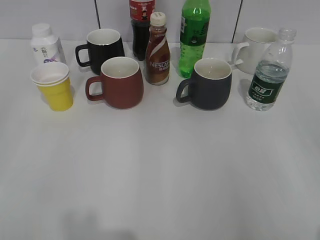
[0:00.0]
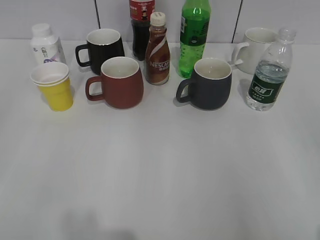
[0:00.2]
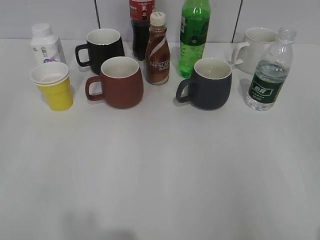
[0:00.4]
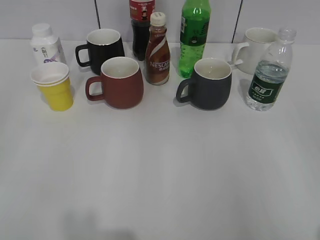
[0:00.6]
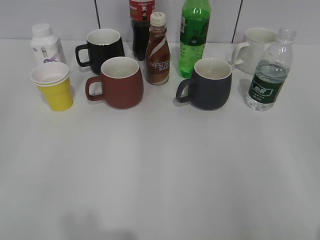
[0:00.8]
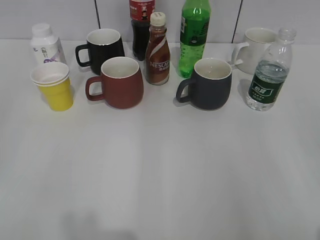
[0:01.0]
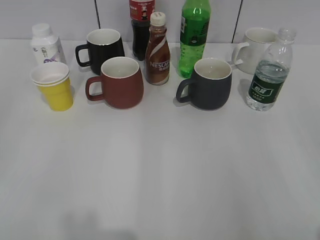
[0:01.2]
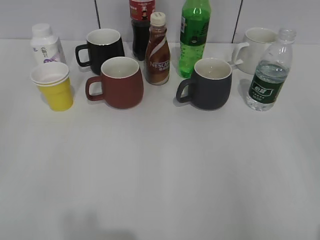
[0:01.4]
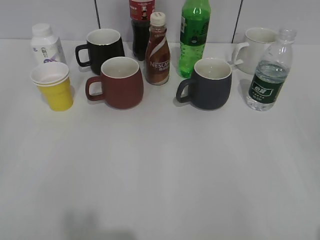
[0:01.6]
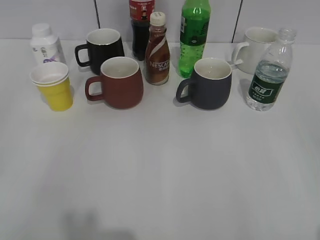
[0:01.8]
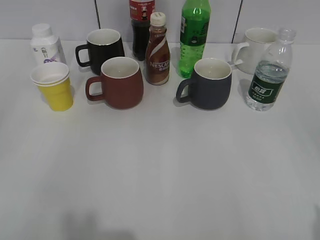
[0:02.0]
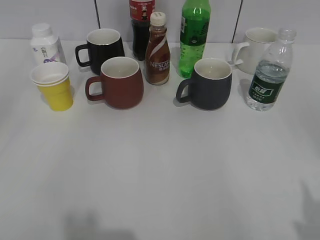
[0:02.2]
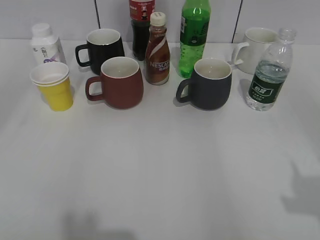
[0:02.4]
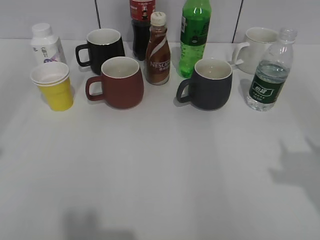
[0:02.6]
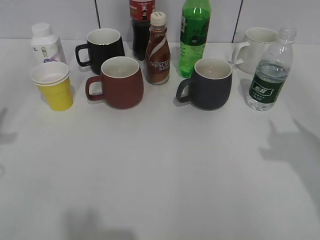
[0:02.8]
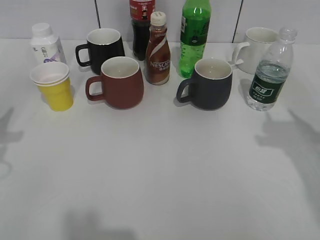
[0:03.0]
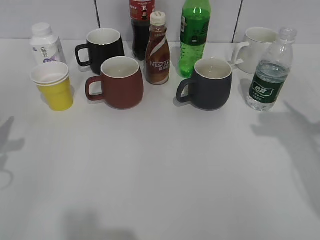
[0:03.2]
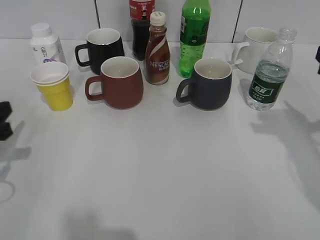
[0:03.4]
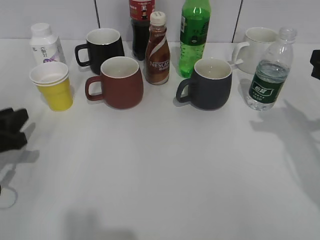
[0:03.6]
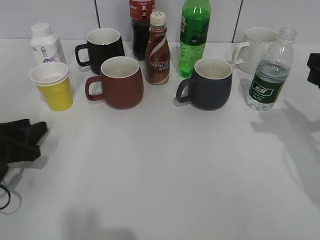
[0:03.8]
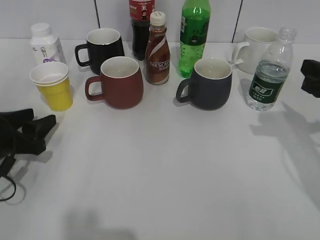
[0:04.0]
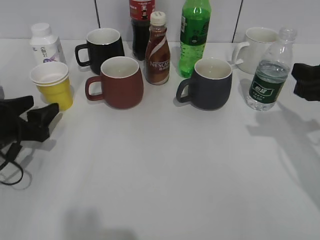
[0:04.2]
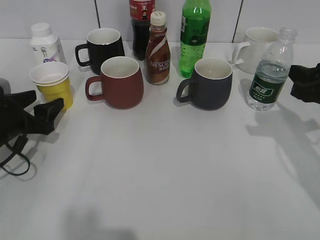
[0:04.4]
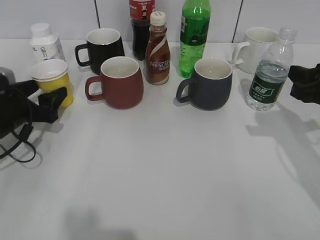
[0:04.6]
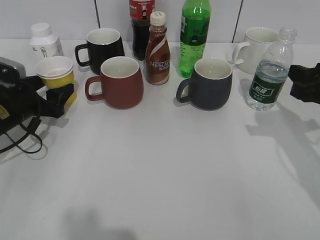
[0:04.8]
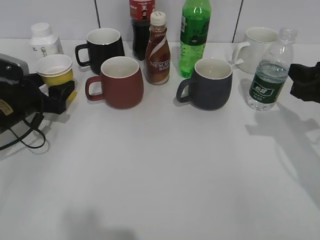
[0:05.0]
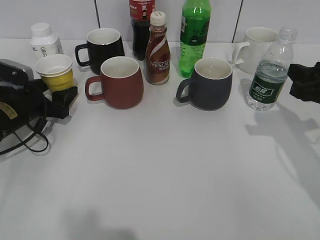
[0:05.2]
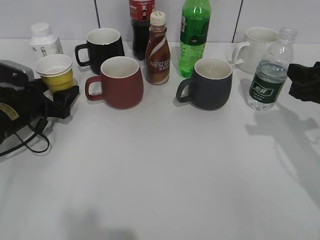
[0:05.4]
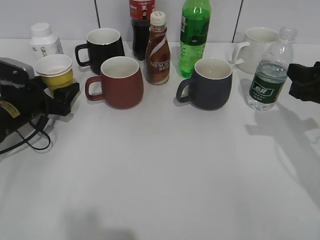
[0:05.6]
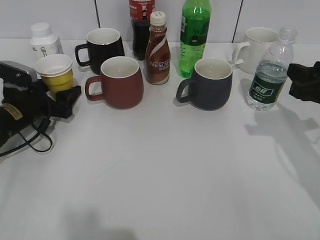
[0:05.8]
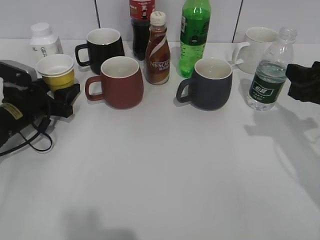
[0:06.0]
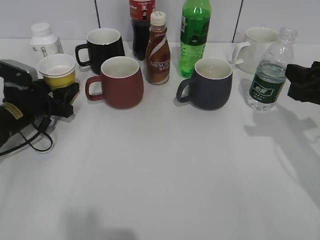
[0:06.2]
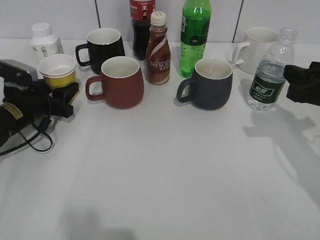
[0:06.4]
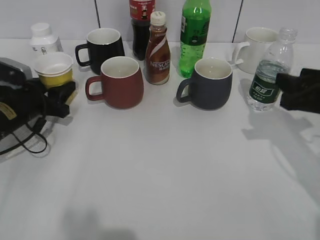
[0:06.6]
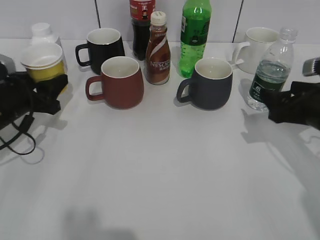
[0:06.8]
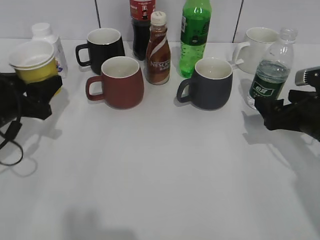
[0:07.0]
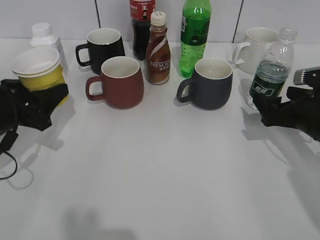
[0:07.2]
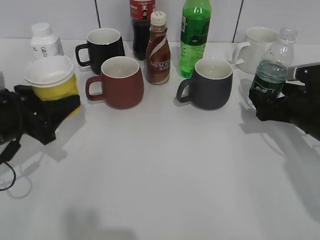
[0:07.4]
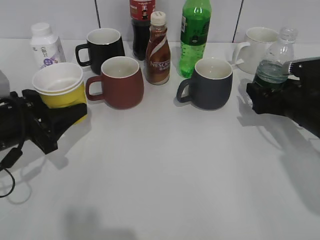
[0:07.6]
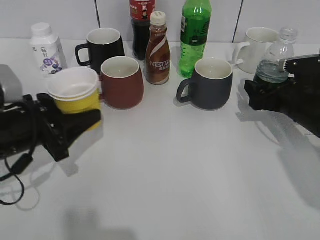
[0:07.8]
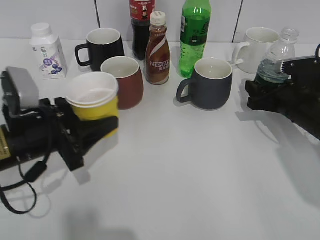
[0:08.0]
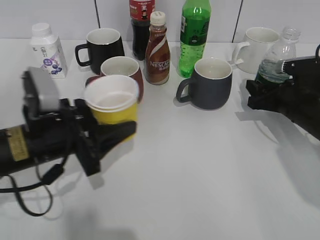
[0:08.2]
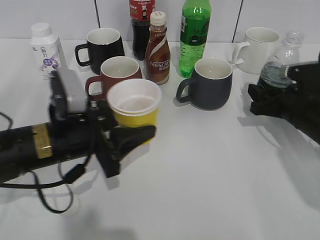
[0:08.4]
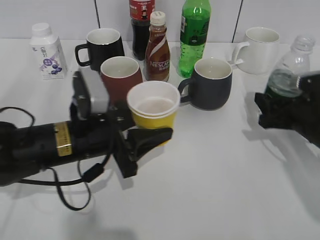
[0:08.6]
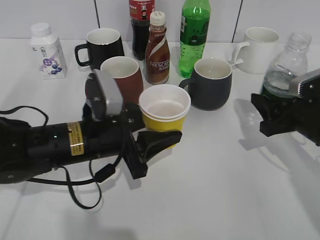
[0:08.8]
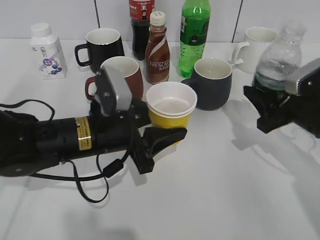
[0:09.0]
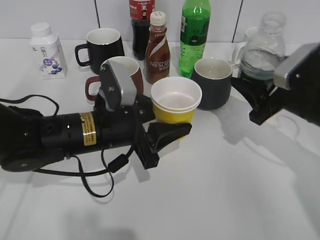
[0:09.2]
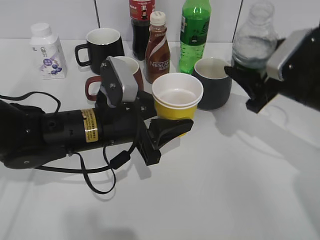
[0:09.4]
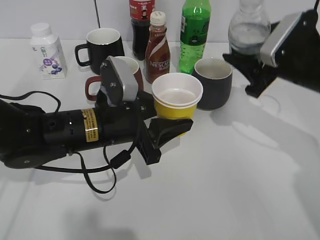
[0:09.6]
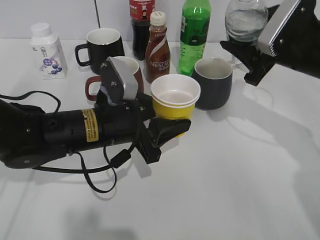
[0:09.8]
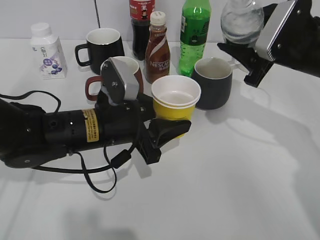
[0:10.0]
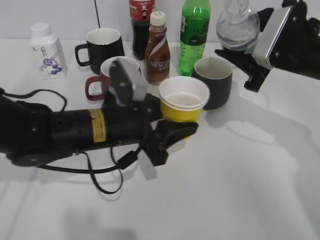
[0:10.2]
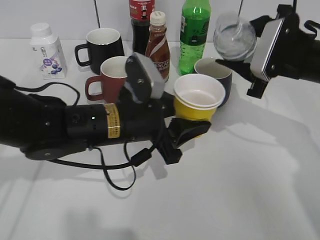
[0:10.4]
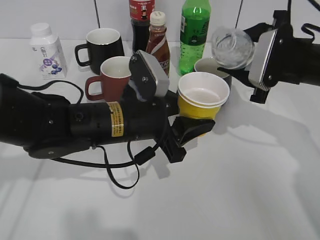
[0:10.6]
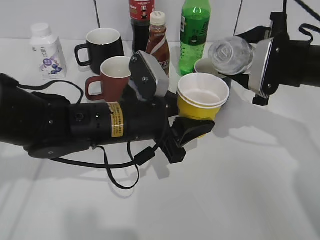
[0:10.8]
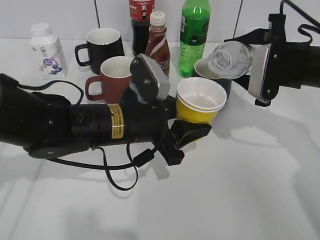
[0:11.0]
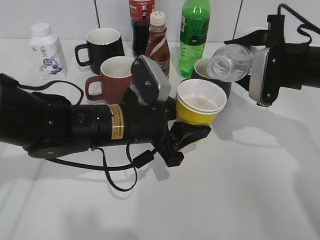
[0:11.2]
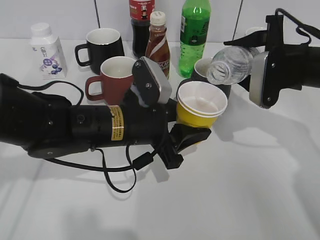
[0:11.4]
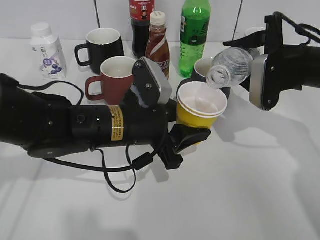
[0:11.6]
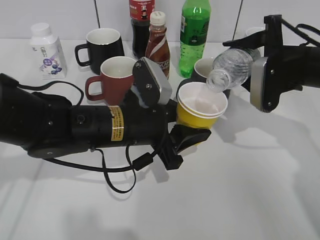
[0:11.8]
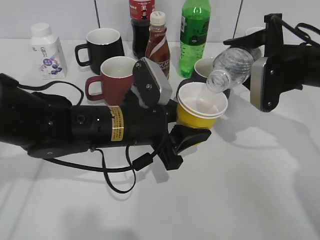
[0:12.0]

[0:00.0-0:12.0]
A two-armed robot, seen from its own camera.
Step, 0:01.6 to 0:06.2: Grasp the yellow paper cup with left gripper.
Step, 0:06.6 to 0:07.6: Grasp the bottle with water with right gripper.
0:03.0 to 0:04.4: Both grippers travel together downward and forward, some 10 cm. The left gripper opens up.
0:04.4 to 0:06.0: The left gripper goes some 5 cm forward.
0:06.0 to 0:07.6: The right gripper travels downward and forward by about 10 cm, and opens. Meanwhile the left gripper travels backward and upward by approximately 10 cm.
0:07.6 to 0:09.0: The right gripper moves backward, some 5 cm, and closes up. The left gripper travels to the right by approximately 15 cm.
0:09.0 to 0:10.4: The right gripper is displaced forward and upward by about 10 cm.

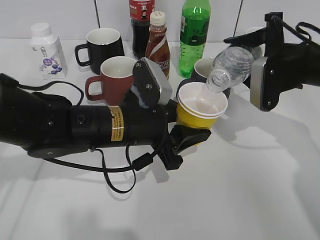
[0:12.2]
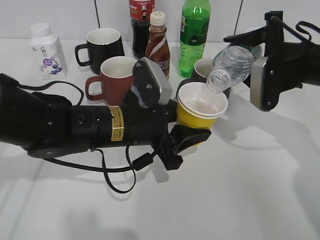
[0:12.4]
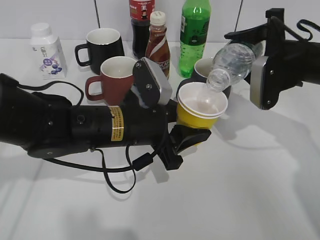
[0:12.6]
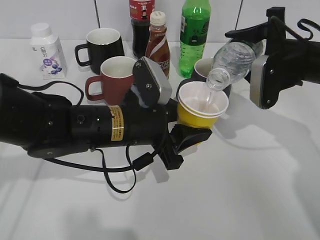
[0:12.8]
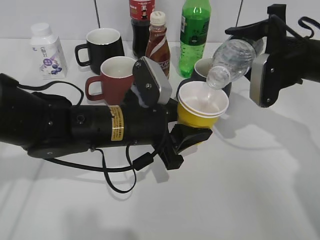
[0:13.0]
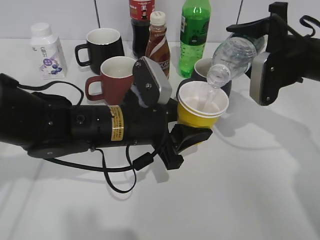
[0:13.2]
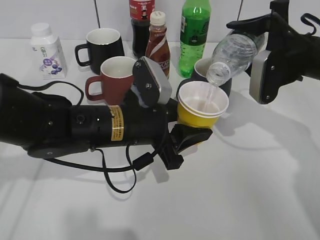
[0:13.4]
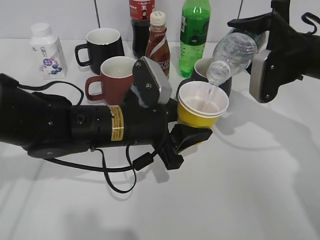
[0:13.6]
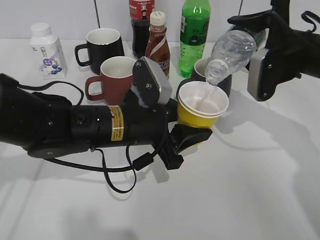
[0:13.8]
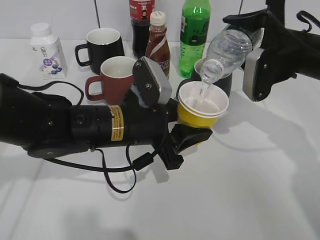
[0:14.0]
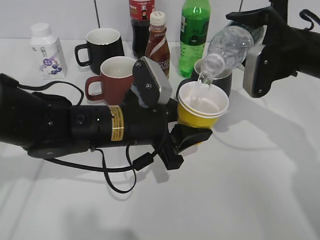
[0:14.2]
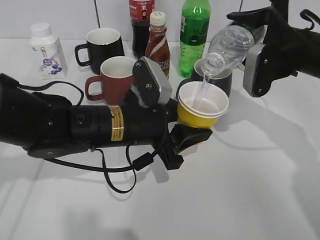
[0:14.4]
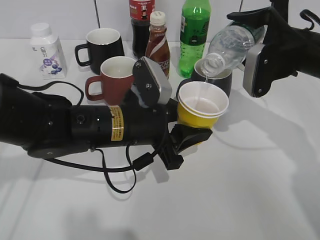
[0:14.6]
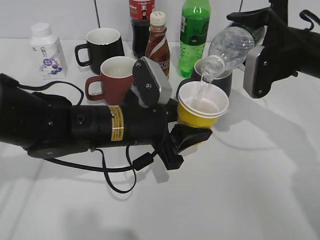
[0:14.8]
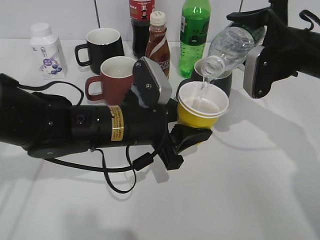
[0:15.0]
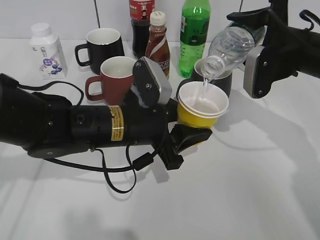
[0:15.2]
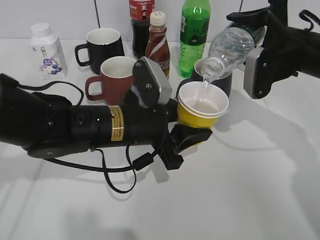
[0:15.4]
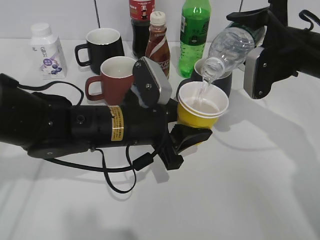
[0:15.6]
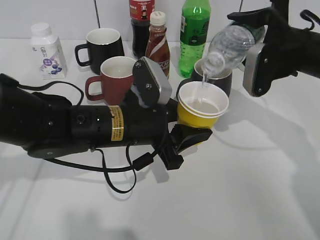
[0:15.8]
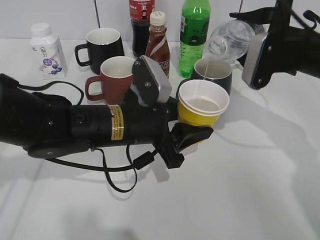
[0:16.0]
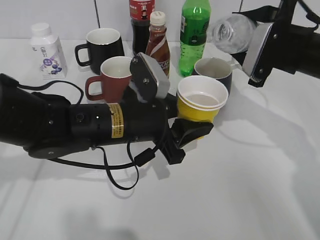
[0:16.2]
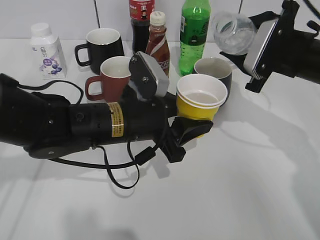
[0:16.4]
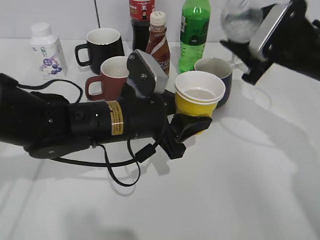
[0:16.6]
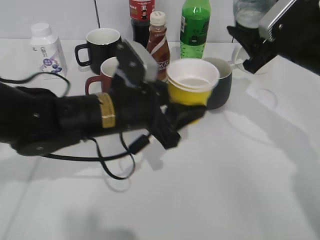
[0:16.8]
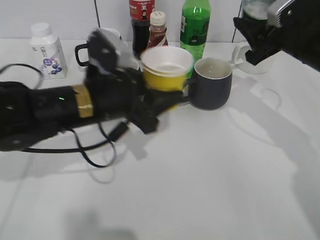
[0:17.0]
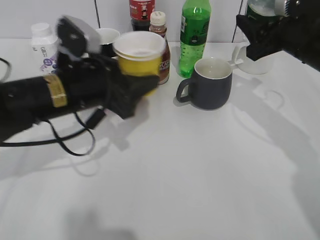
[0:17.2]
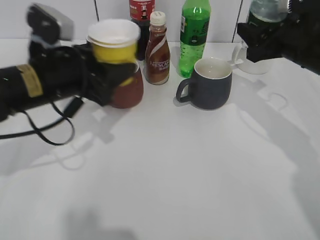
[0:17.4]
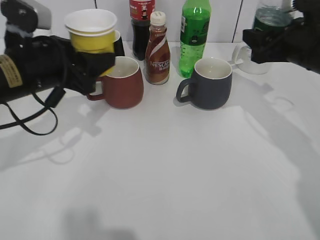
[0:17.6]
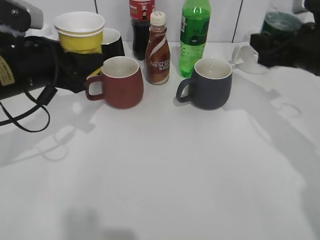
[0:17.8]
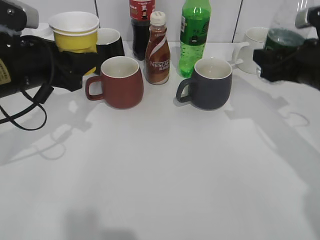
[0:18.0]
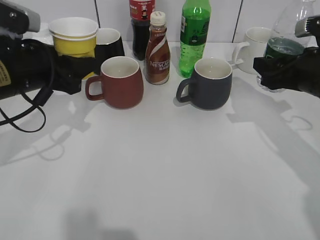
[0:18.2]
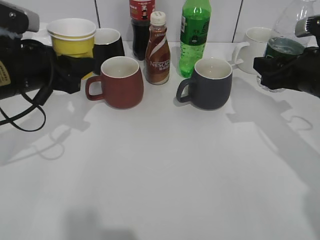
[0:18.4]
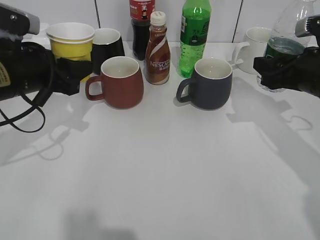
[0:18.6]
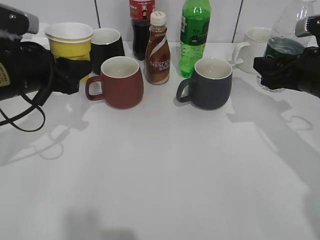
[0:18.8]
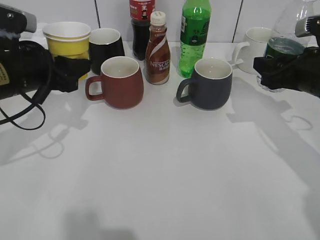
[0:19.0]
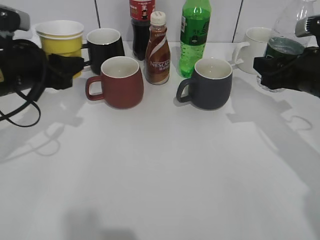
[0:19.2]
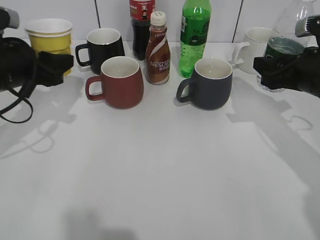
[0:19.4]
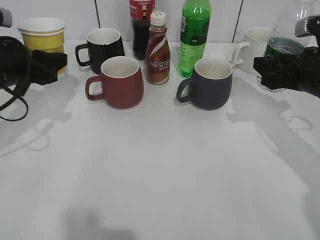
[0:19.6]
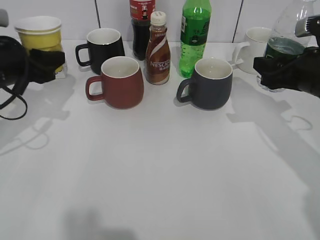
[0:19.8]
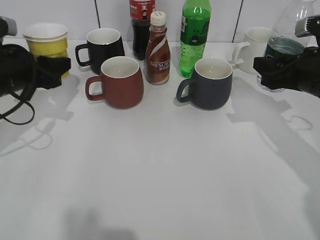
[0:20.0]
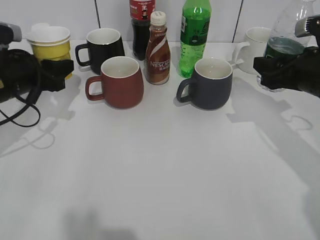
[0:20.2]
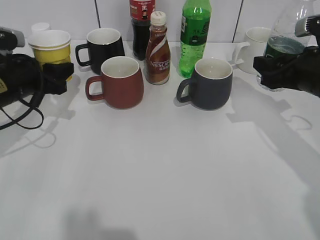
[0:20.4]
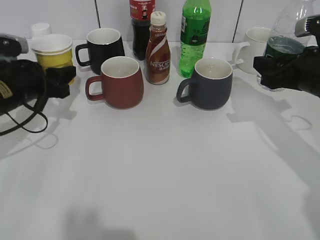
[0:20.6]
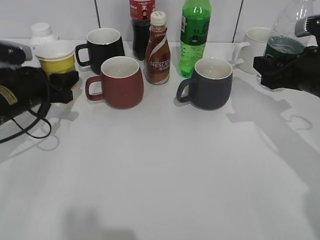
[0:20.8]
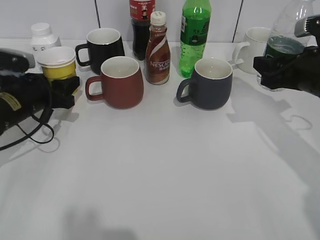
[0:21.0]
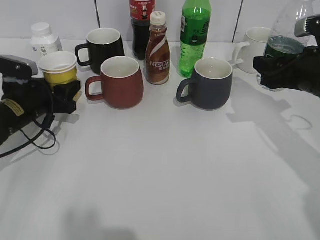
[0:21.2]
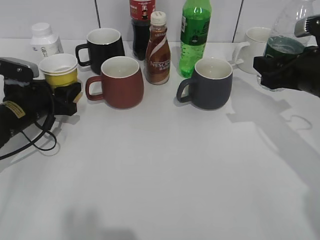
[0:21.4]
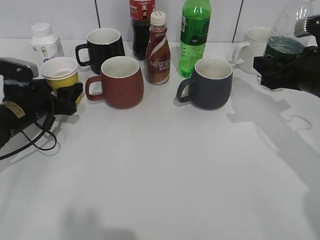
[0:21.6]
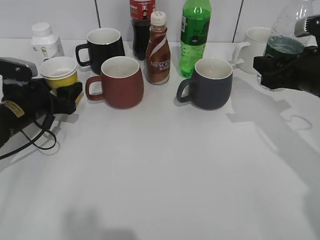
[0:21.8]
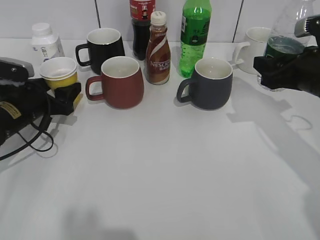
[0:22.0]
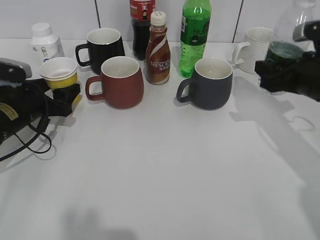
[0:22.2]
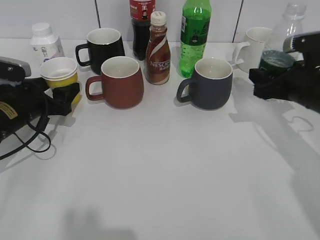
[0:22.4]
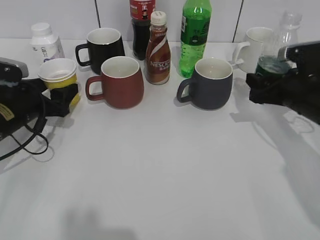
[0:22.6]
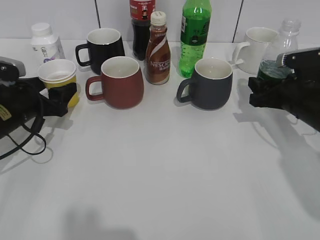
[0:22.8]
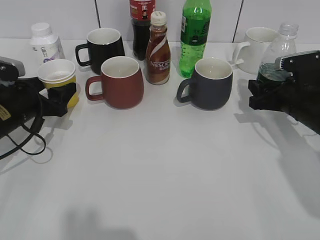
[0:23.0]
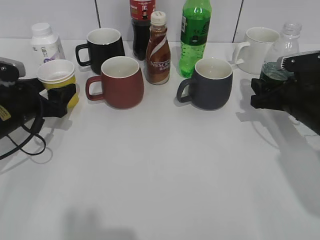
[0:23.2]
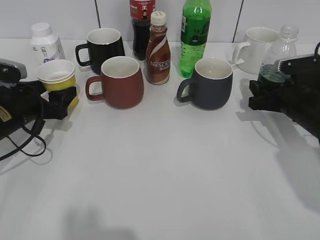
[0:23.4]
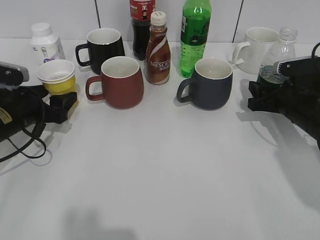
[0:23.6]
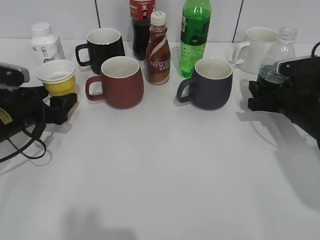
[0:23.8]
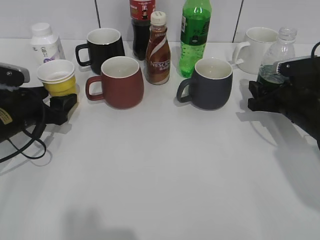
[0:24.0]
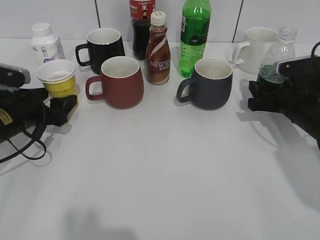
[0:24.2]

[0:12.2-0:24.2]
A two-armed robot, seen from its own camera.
Step, 0:12.2 to 0:16.6: Pour the water from bottle to cup with right gripper.
Step, 0:16.8 to 0:22.0: Place the yellow paper cup on the table with left gripper.
0:12.2 to 0:13.8: The grippers stay close to where they were, moving slightly.
0:13.8 to 0:15.2: Neither gripper changes place.
0:16.6 to 0:18.2: The right gripper ends up roughly 5 cm from where it was. Meanwhile the left gripper is displaced to the left by some 15 cm.
0:18.2 to 0:19.8: The grippers make only small movements.
0:19.8 to 0:21.2: The left gripper travels downward by some 10 cm.
0:21.2 to 0:22.6: The left gripper opens its fingers. The right gripper is displaced downward by approximately 5 cm.
0:22.6 to 0:24.2: There are only small adjustments of the grippers.
